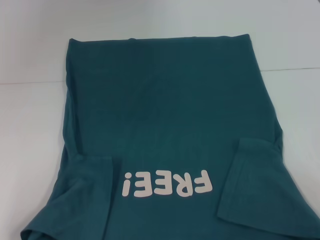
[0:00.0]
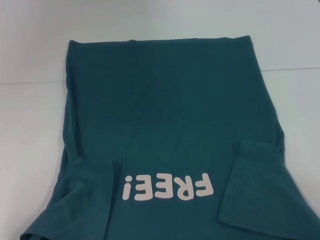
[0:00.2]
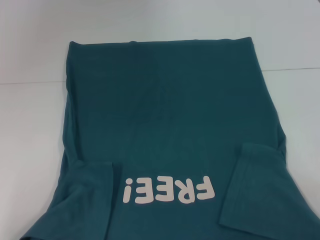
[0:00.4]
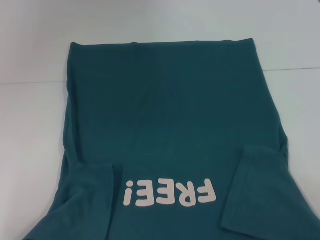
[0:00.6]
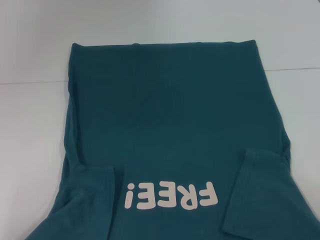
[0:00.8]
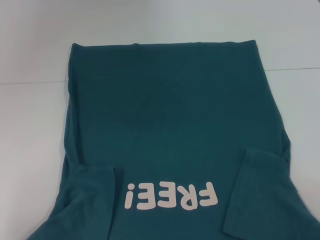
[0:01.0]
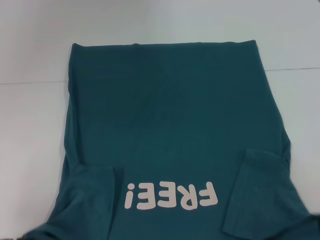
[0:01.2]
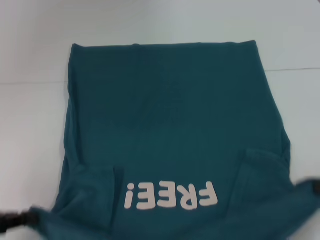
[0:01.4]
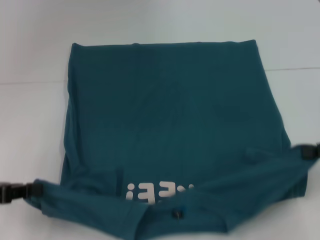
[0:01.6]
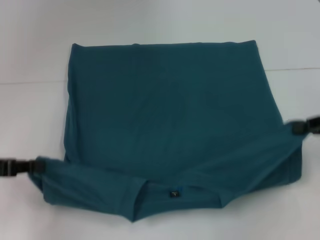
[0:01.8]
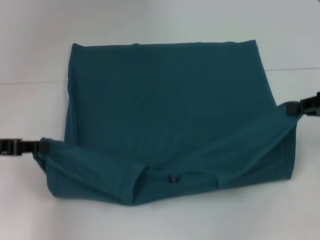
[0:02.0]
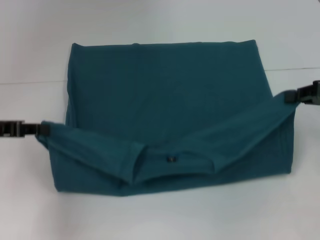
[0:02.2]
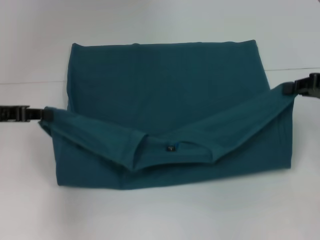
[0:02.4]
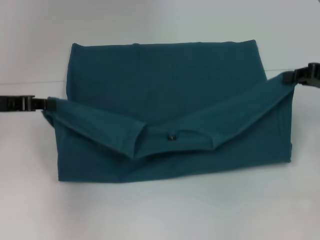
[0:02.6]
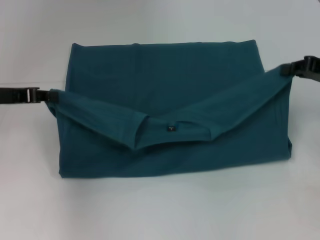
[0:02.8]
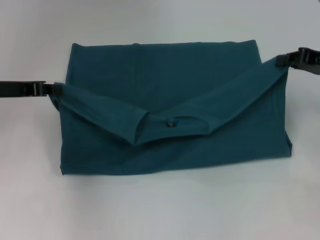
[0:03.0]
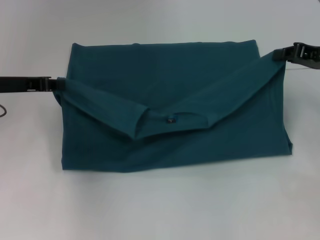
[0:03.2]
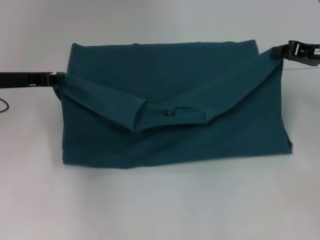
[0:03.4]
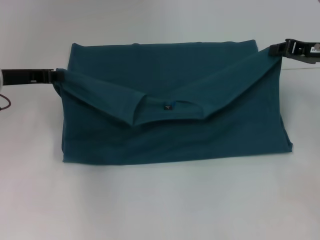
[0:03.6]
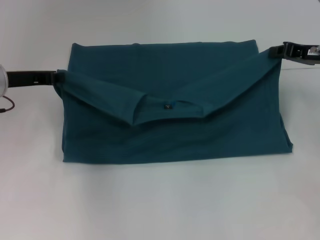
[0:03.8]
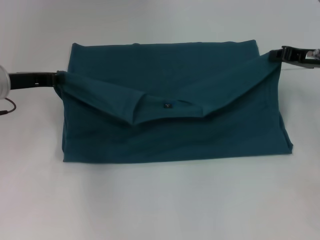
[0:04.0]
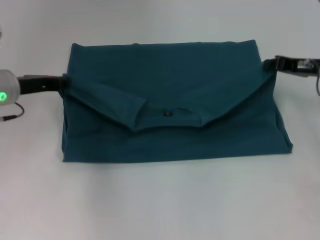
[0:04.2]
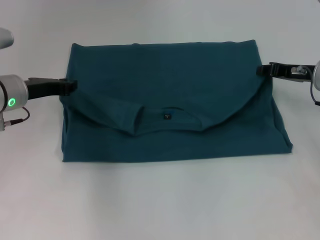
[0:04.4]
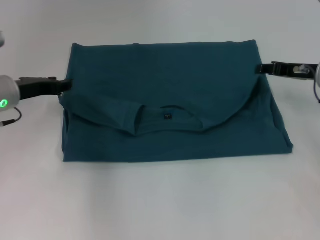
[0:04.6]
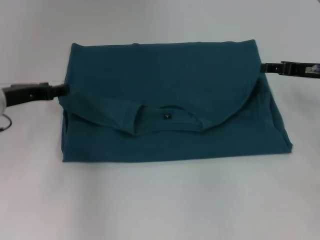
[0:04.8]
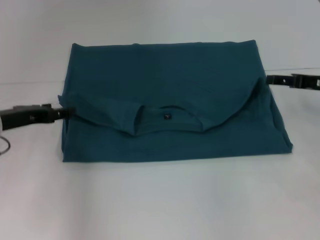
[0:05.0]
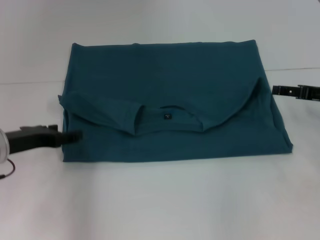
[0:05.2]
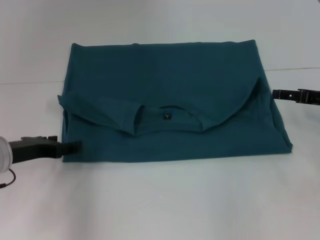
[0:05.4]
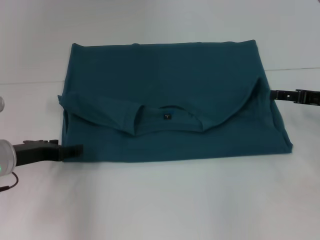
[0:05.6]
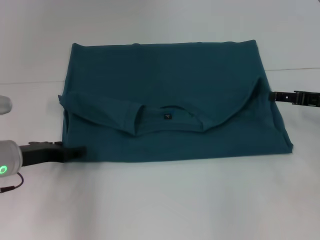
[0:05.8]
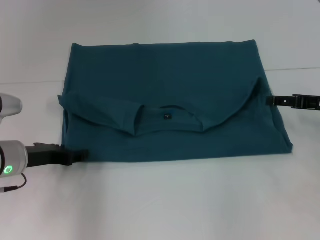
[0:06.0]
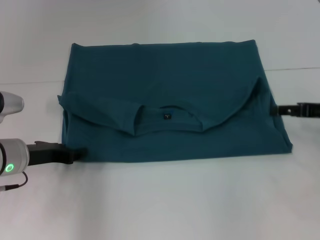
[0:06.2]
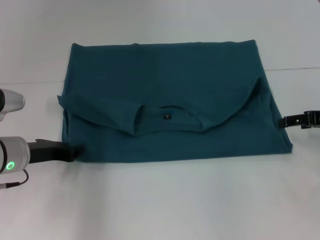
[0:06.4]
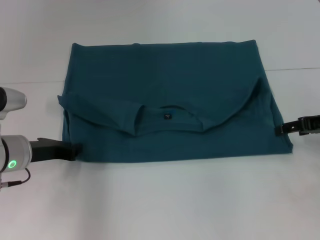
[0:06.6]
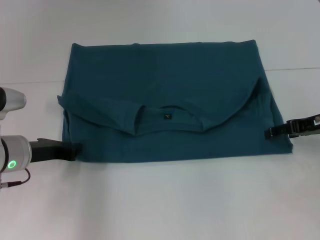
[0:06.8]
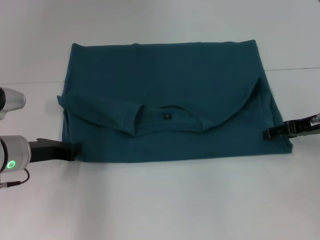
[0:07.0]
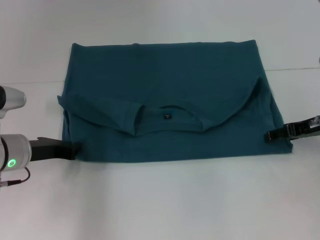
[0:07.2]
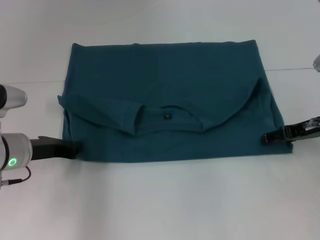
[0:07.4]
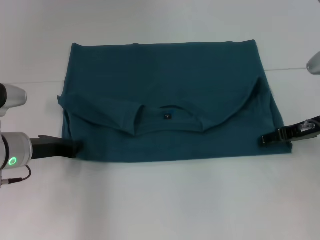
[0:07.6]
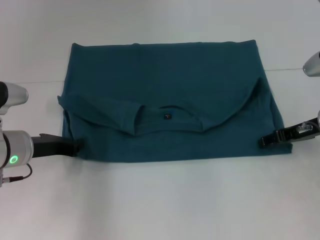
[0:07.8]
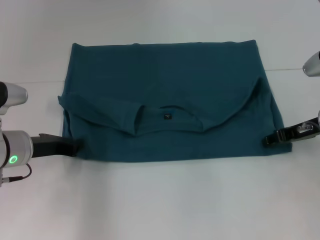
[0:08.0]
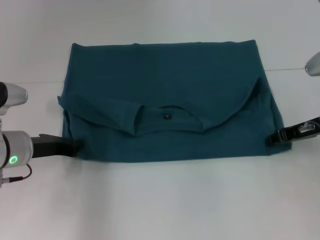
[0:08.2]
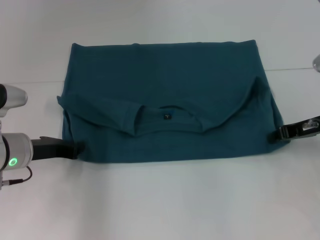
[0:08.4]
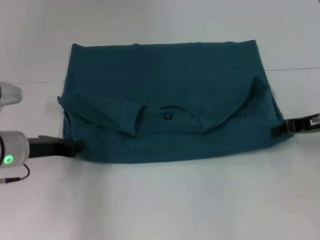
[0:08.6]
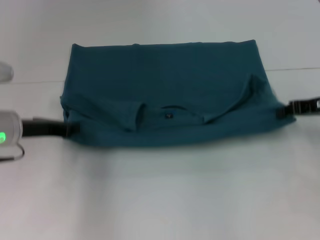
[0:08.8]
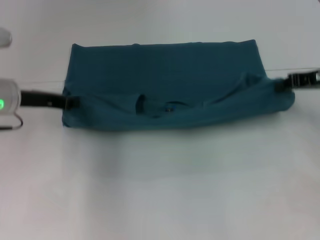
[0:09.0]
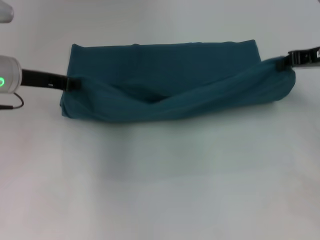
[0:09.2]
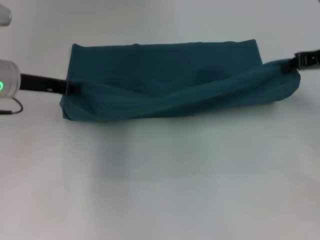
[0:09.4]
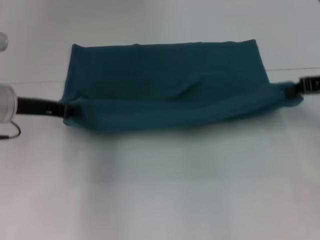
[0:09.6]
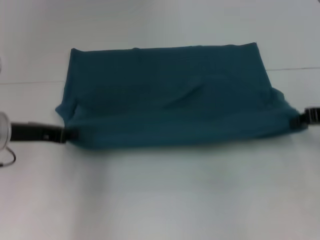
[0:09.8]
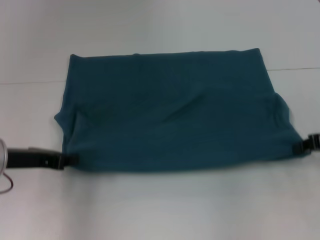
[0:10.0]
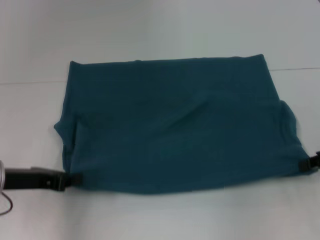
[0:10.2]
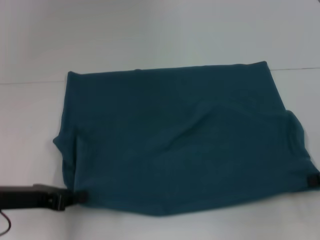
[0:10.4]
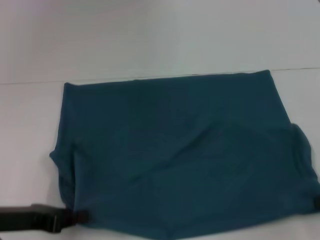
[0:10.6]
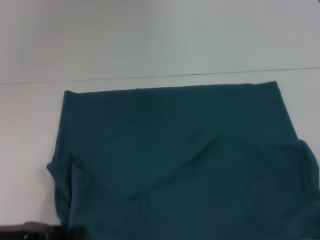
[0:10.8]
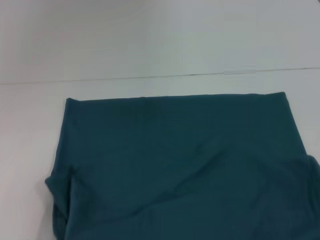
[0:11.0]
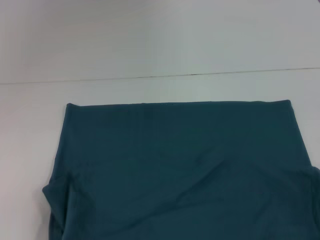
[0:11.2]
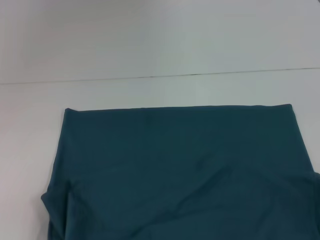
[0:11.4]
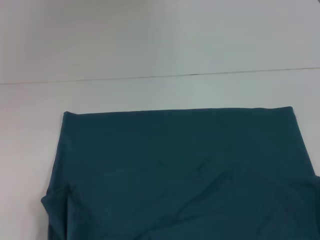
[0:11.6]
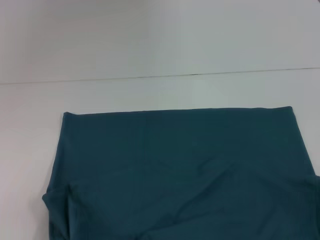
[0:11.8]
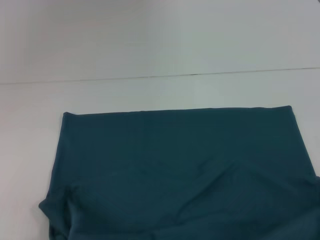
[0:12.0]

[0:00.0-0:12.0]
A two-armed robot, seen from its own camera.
Step, 0:00.0 to 0:04.4: Fold the clothes to the left.
Step, 0:00.0 to 0:04.4: Fold the clothes to the right.
Step, 0:04.6 to 0:11.2: Pull the clothes with your left hand.
Step, 0:04.6 to 0:11.2: Pull the clothes with your right hand.
0:00.0 to 0:01.6: The right gripper travels forward and upward by approximately 10 cm. The left gripper heads forward, covering about 10 cm.
0:01.6 to 0:03.0: Both grippers travel together forward, about 15 cm.
0:03.0 to 0:04.4: The left gripper shifts by roughly 5 cm; the right gripper shifts by approximately 5 cm.
0:04.4 to 0:06.0: The left gripper shifts roughly 10 cm backward and downward, and opens its fingers; the right gripper shifts approximately 5 cm backward, and opens up.
0:06.0 to 0:07.6: The left gripper closes.
0:07.6 to 0:09.0: The grippers both shift upward by some 5 cm. The right gripper closes its fingers.
0:09.0 to 0:10.4: The left gripper moves backward, approximately 10 cm. Meanwhile the right gripper heads backward and downward, covering approximately 15 cm.
0:10.4 to 0:12.0: The two grippers go some 10 cm backward.

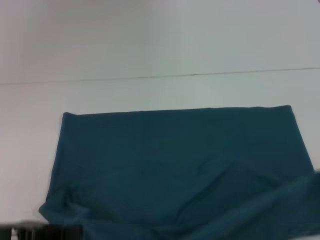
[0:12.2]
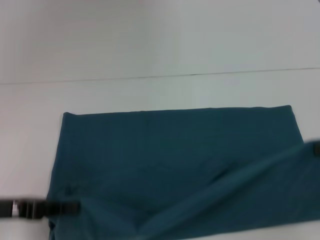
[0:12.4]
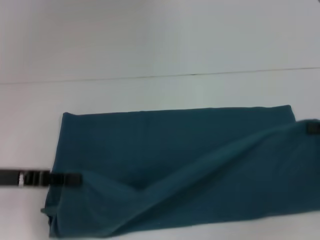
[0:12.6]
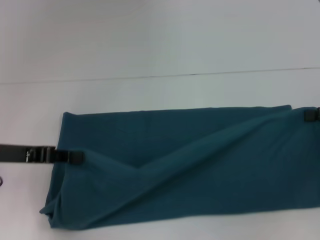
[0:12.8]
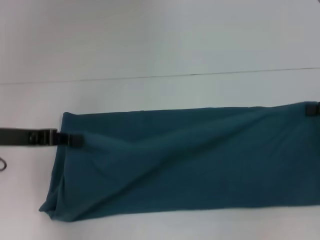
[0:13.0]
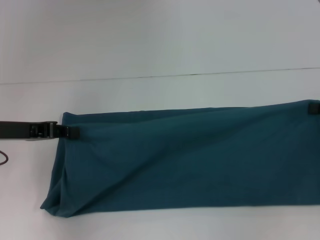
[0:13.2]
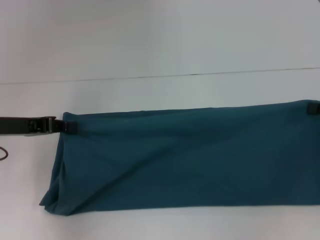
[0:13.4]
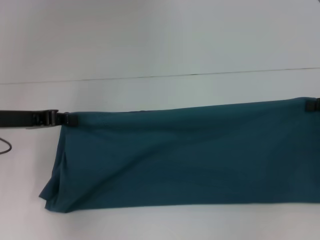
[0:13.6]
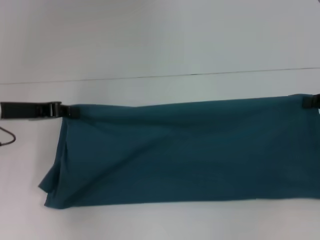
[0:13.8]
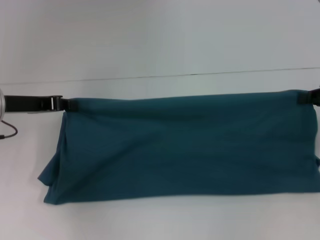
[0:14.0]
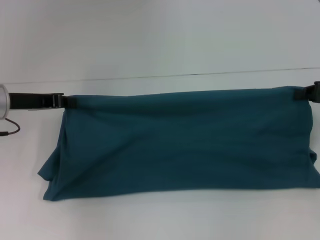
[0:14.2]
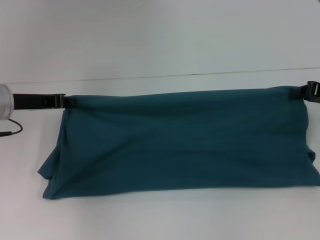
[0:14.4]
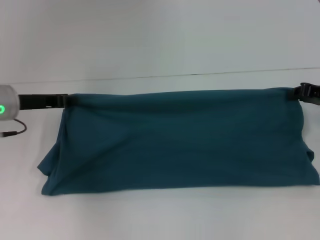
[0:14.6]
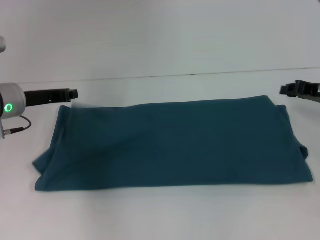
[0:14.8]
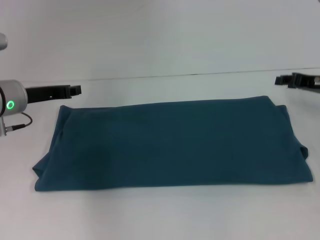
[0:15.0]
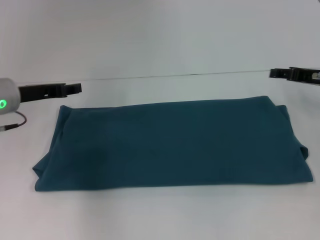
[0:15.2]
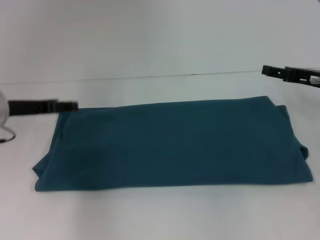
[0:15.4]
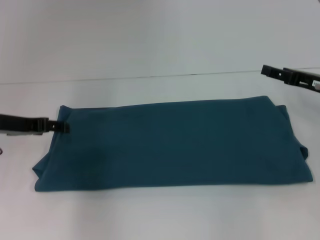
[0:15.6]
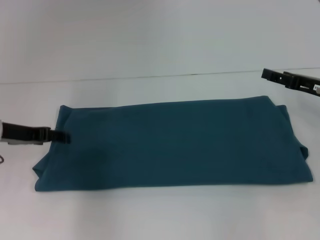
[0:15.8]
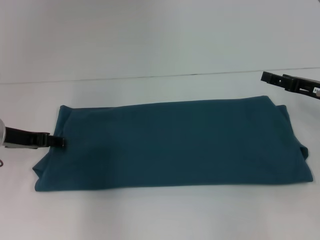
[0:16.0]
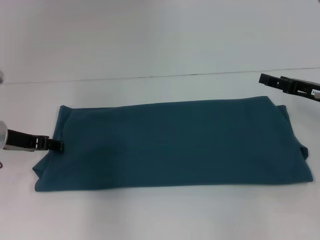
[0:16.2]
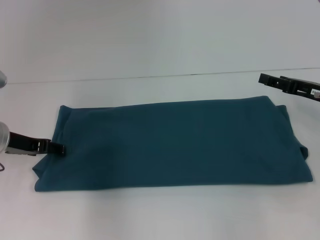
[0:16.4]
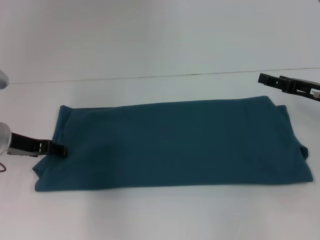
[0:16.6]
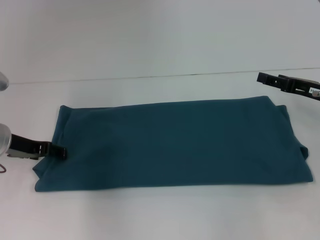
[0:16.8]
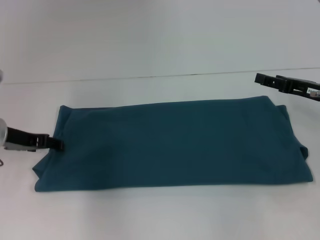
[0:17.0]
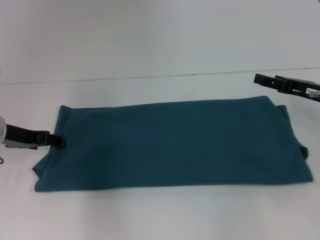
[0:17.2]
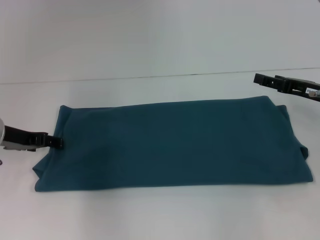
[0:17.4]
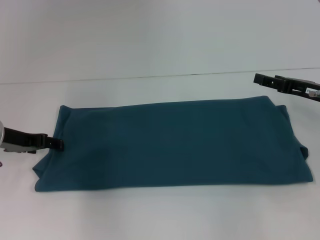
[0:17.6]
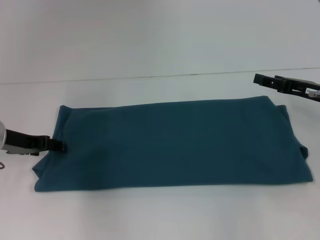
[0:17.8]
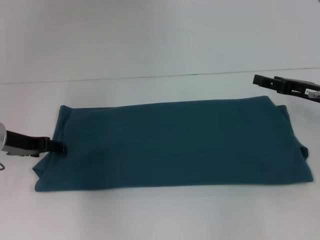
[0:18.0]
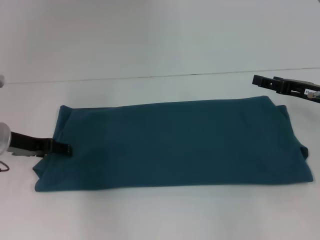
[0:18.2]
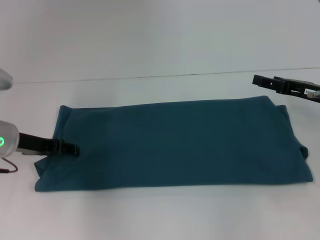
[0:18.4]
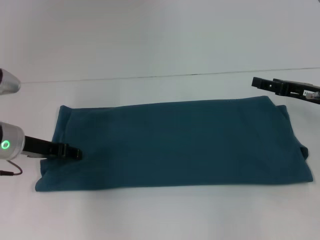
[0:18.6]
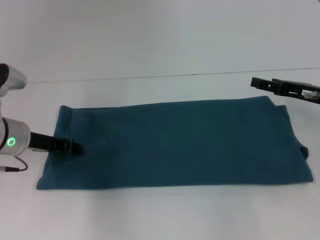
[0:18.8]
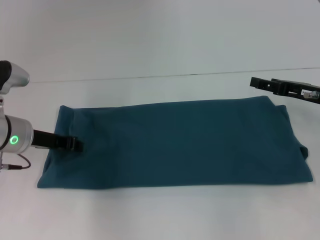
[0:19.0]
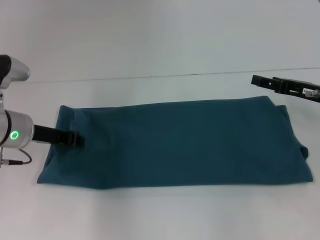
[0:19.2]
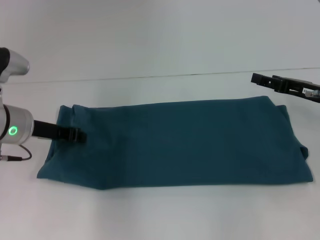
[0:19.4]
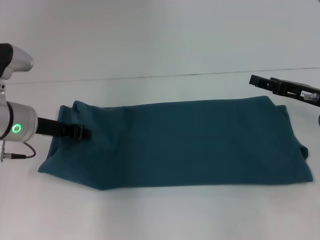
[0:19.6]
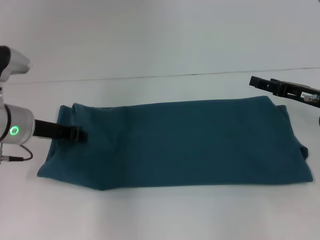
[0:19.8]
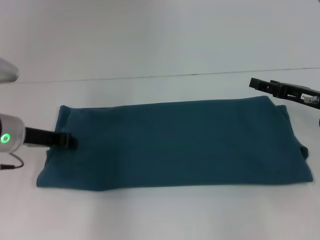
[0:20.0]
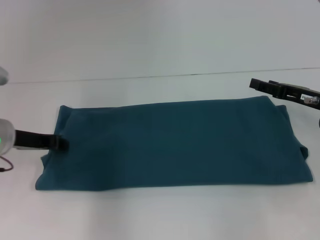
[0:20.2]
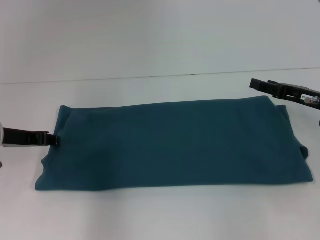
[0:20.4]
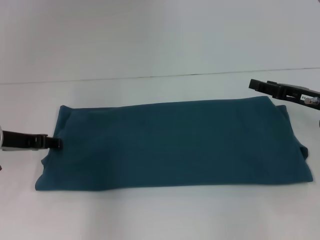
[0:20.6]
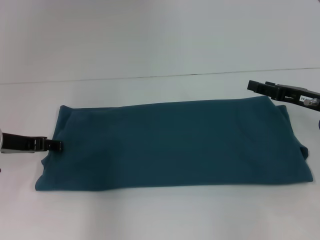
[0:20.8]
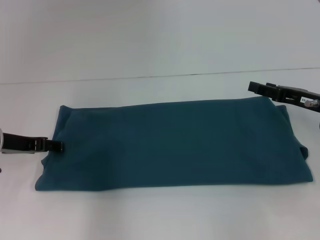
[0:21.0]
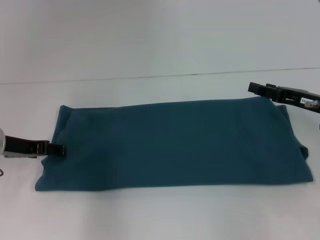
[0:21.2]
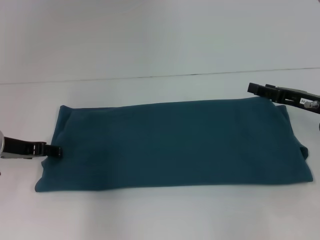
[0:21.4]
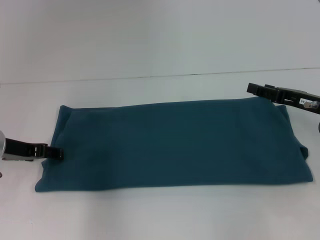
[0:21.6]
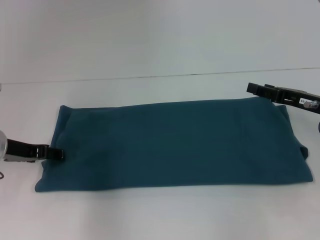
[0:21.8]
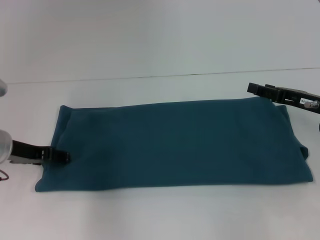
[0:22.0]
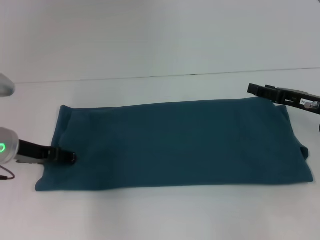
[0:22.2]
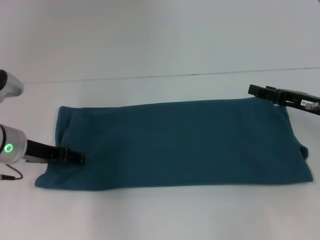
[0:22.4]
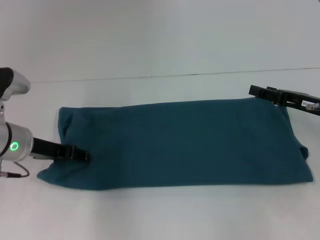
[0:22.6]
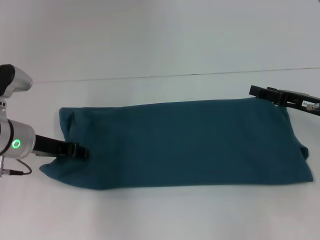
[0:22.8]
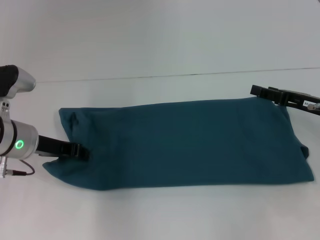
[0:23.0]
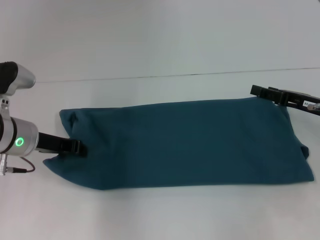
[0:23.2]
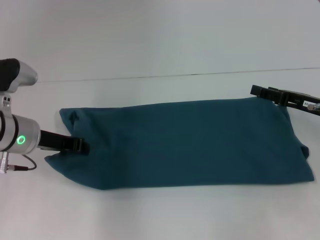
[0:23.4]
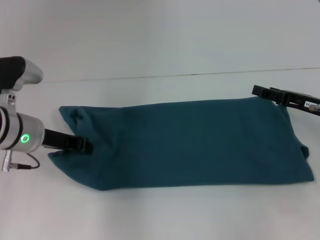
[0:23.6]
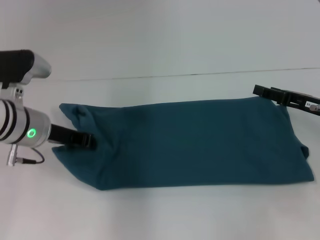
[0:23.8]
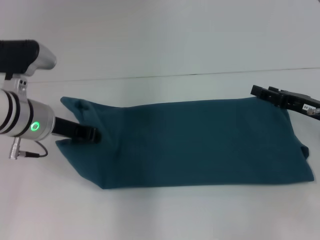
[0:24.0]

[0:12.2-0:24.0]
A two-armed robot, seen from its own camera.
Step, 0:12.2 to 0:14.8: Fold the clothes to the left.
Step, 0:12.2 to 0:14.8: Fold the clothes to the right.
0:12.2 to 0:13.6: Both grippers travel together forward, some 15 cm.
0:13.6 to 0:15.2: The right gripper heads forward and to the left, covering about 10 cm, and opens. Meanwhile the left gripper ends up some 5 cm from where it was.
0:15.2 to 0:16.6: The left gripper opens its fingers; the right gripper opens its fingers.
0:16.6 to 0:18.2: The grippers move only a little.
0:18.2 to 0:19.6: The left gripper ends up approximately 5 cm from where it was, and closes.
0:19.6 to 0:21.0: The left gripper ends up approximately 5 cm from where it was, and opens its fingers.
0:21.0 to 0:22.6: The grippers stay close to where they were, moving slightly.
0:22.6 to 0:24.0: The left gripper ends up about 5 cm from where it was, and closes.
